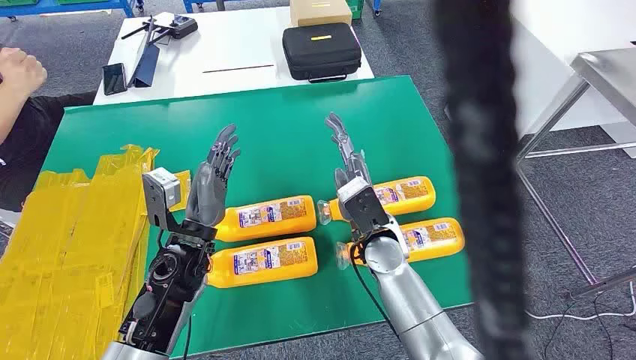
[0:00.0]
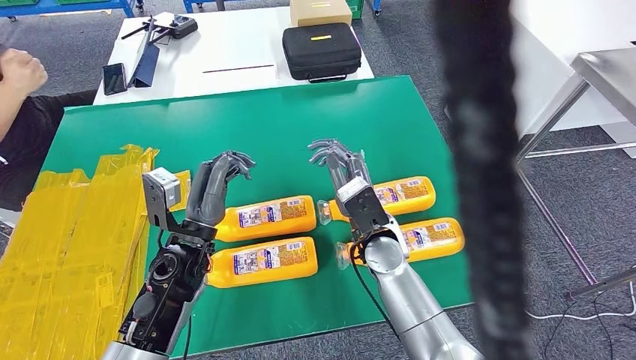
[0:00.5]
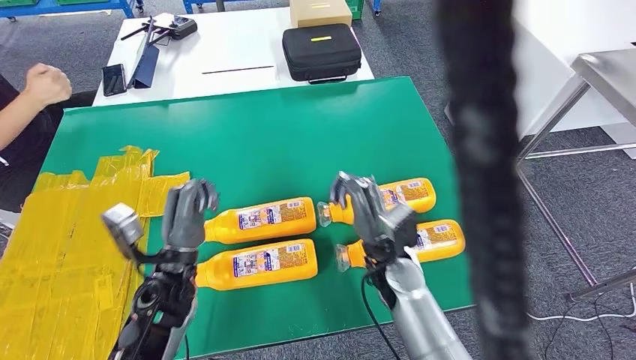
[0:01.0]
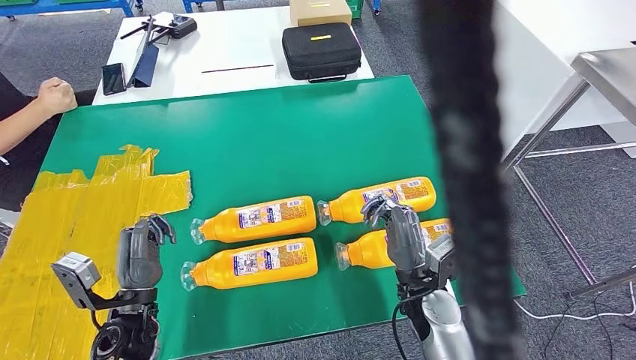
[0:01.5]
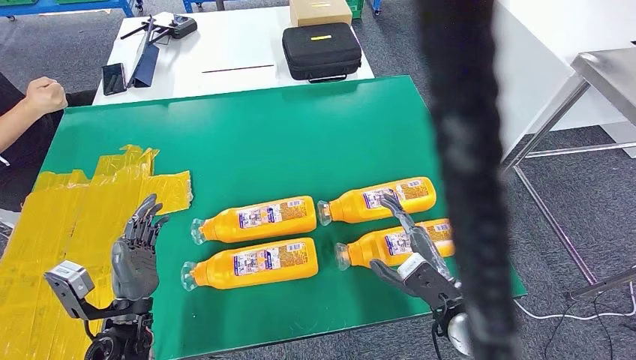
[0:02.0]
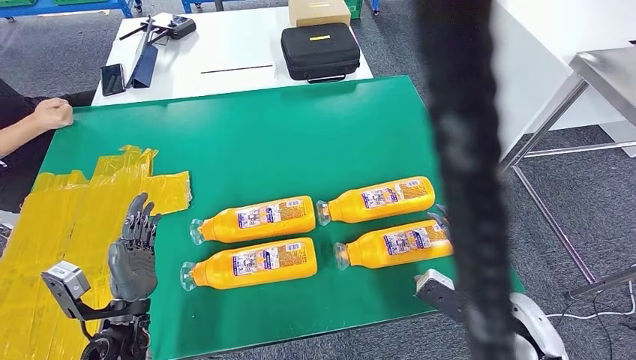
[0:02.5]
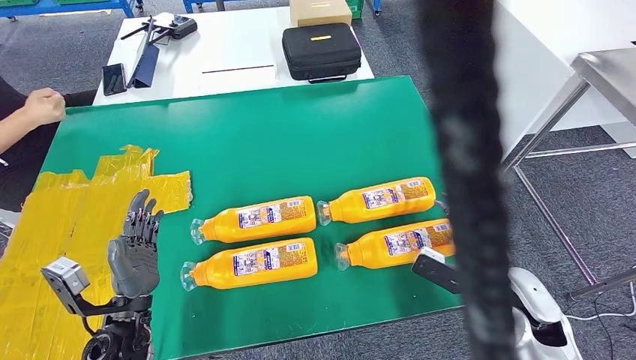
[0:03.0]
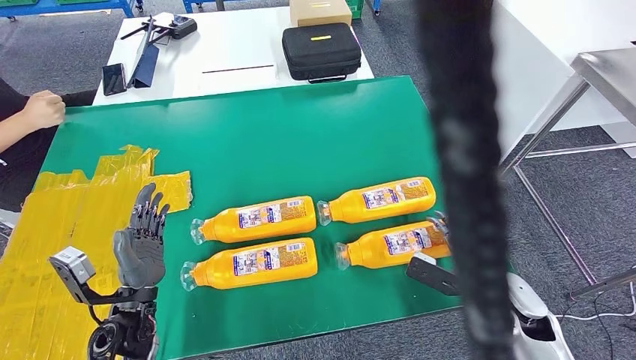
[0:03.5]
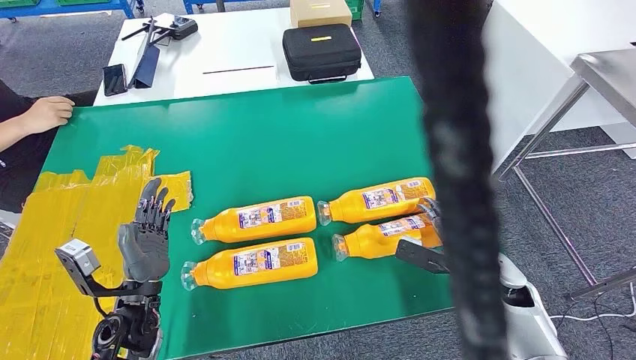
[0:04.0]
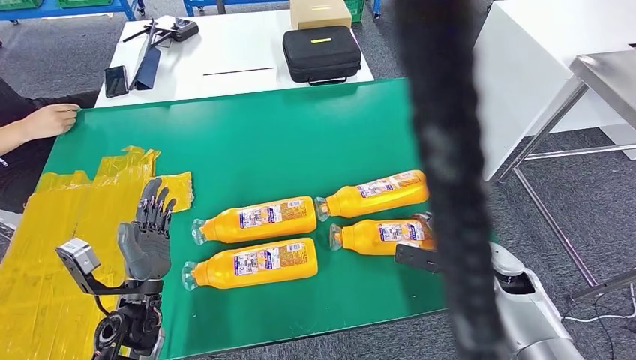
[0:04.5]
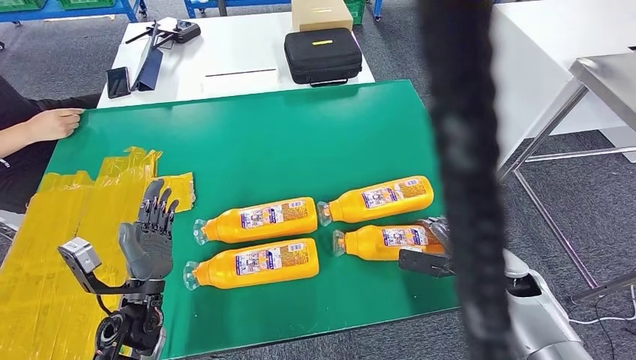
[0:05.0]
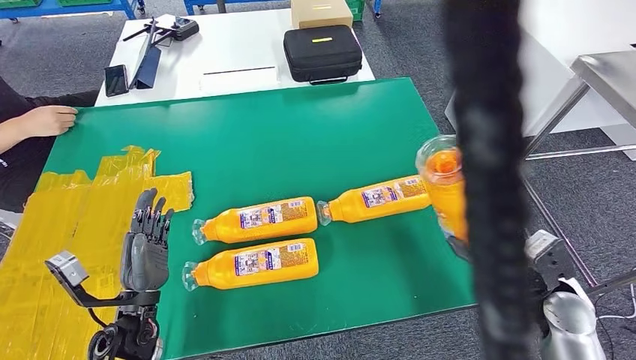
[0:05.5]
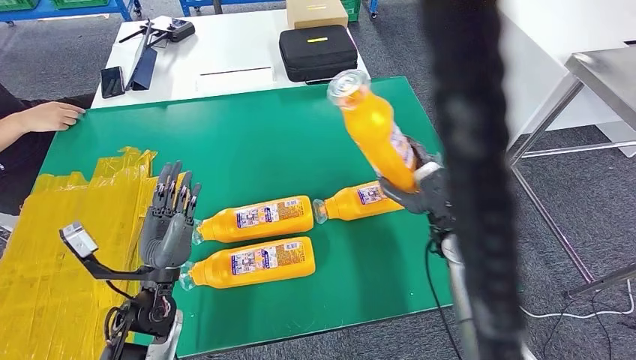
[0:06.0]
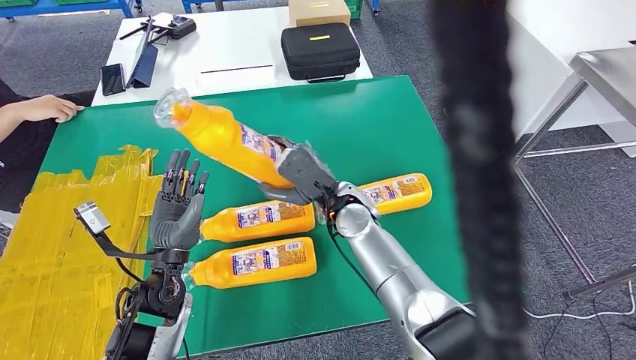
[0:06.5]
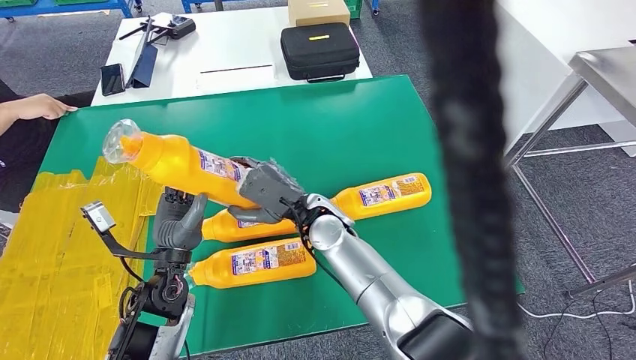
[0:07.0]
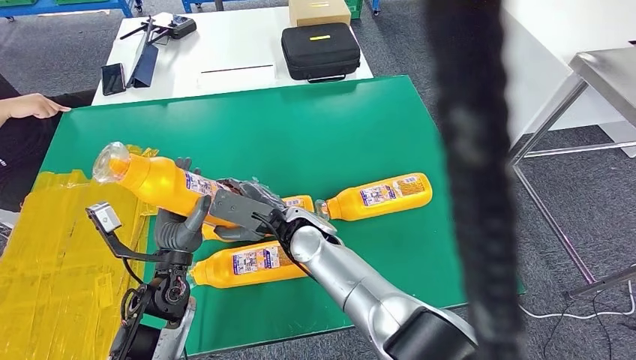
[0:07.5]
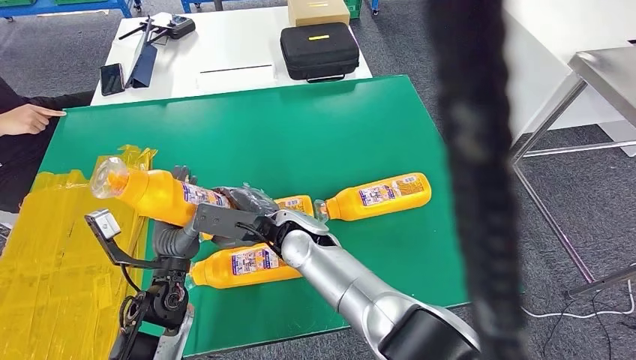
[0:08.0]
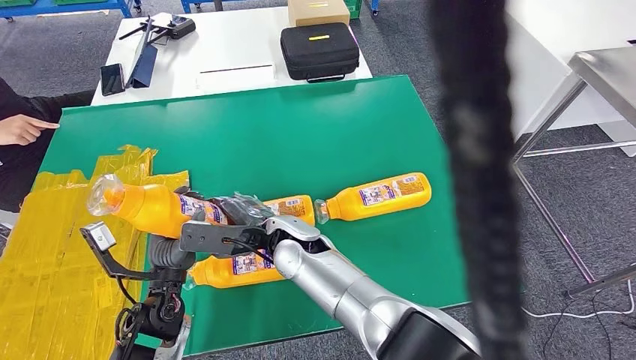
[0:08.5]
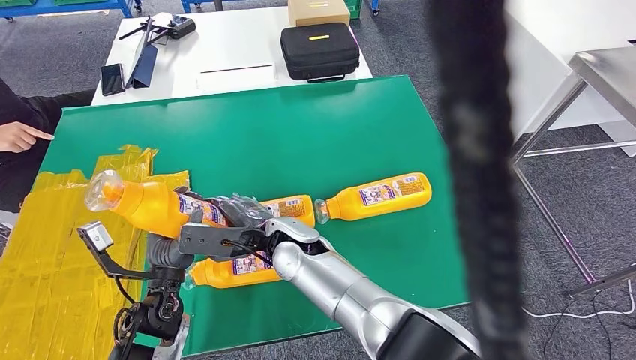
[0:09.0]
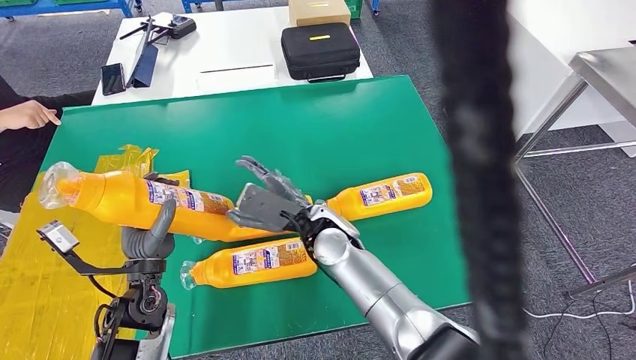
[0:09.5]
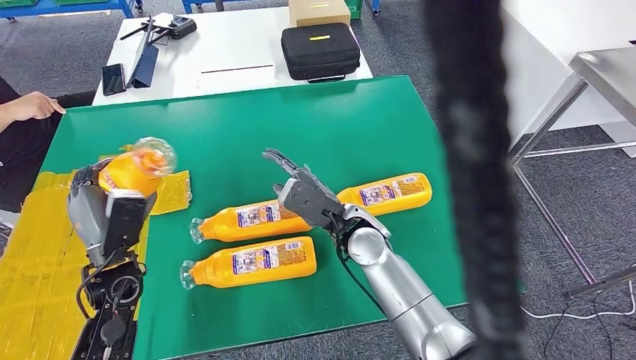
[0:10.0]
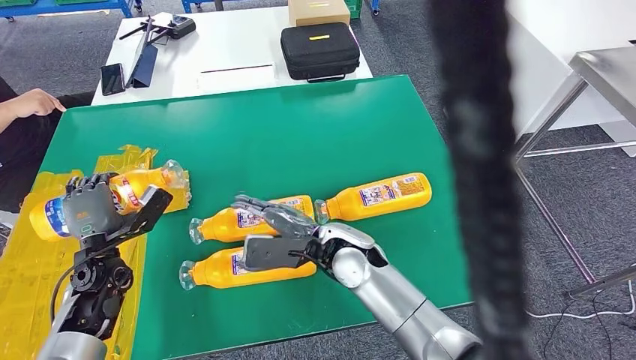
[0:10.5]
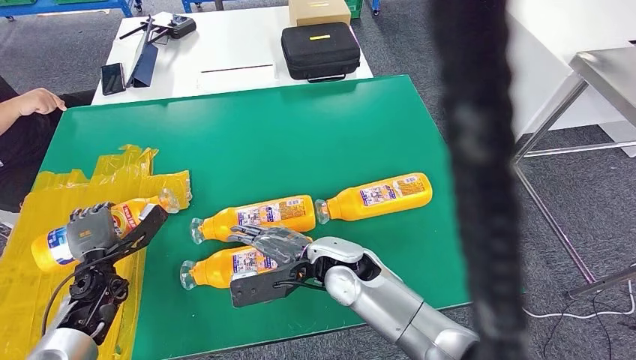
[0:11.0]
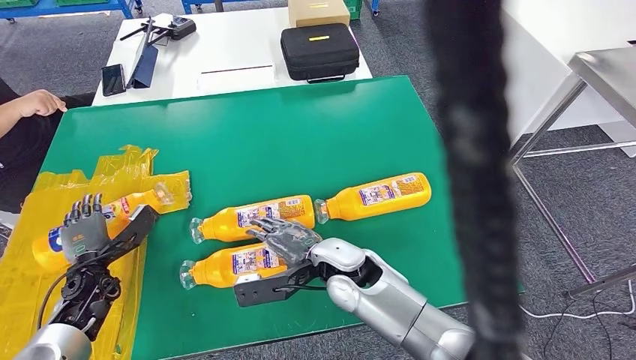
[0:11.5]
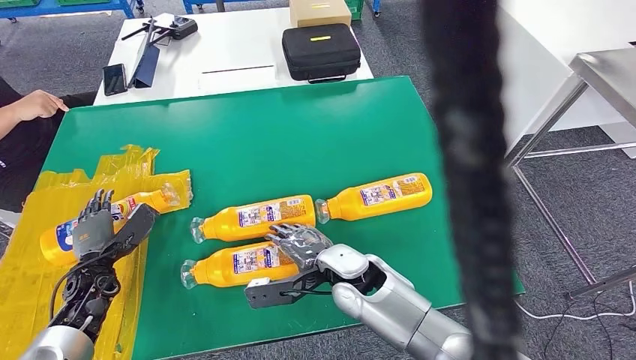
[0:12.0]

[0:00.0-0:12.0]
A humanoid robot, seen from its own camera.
Step, 0:00.0 to 0:06.5: Take the fast-moving consumer goods bottle from the table.
0:02.0 to 0:04.0: The right hand travels to the right and forward by roughly 10 cm.
0:10.0 to 0:12.0: The left hand moves to the left and downward, some 15 cm. The right hand goes about 10 cm backward and downward.

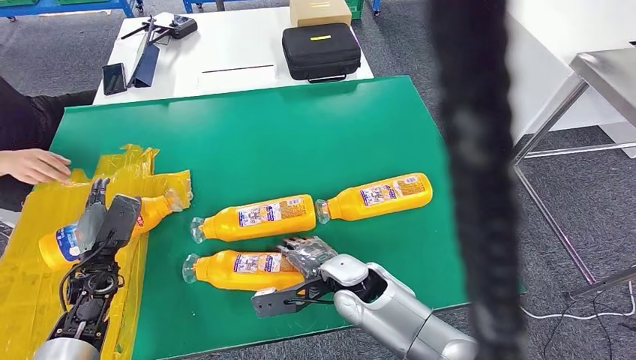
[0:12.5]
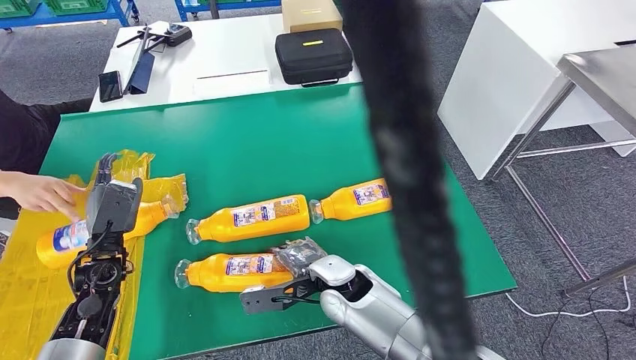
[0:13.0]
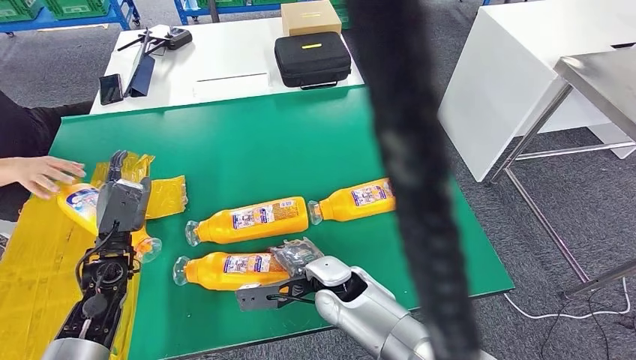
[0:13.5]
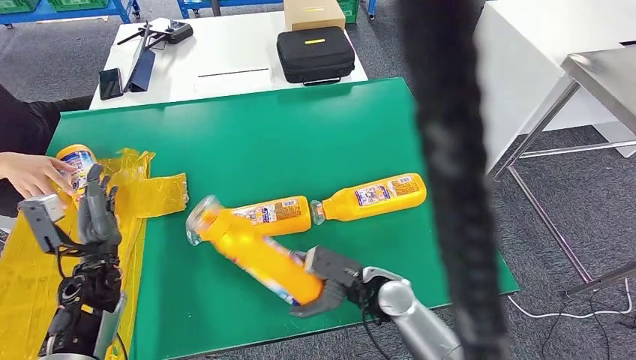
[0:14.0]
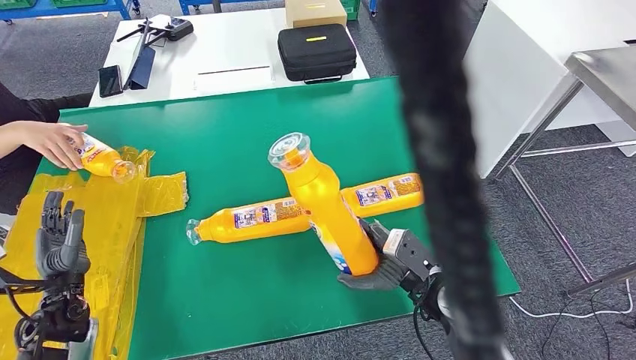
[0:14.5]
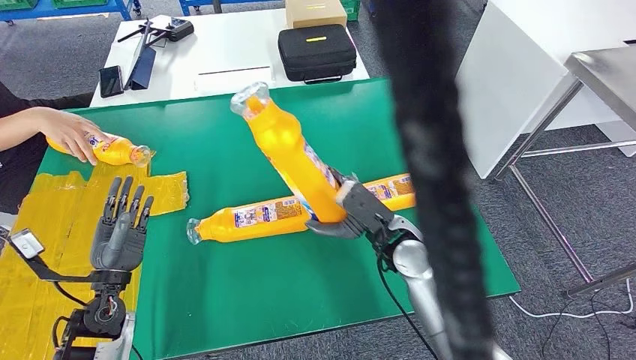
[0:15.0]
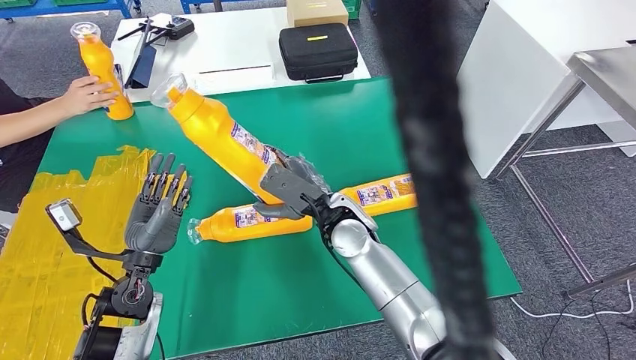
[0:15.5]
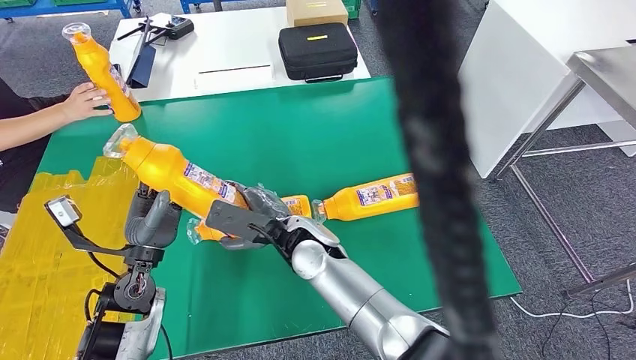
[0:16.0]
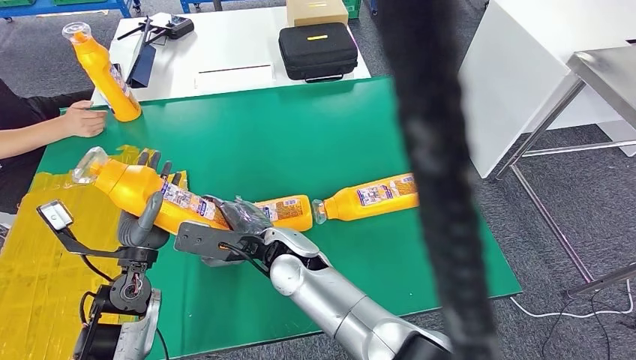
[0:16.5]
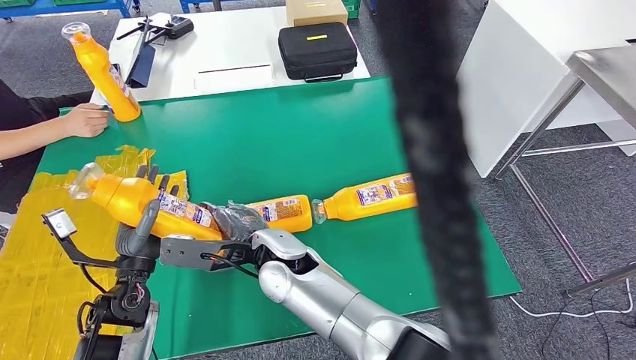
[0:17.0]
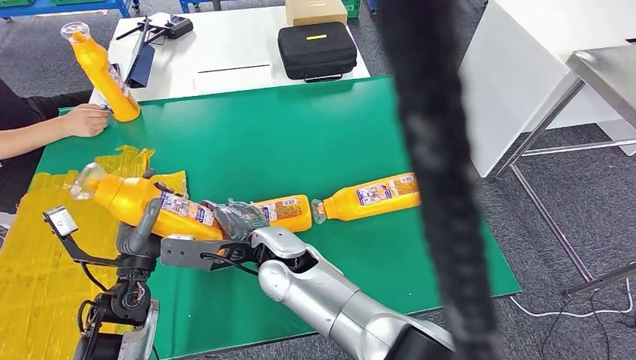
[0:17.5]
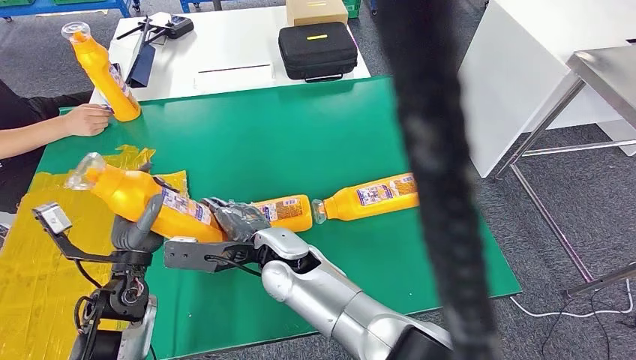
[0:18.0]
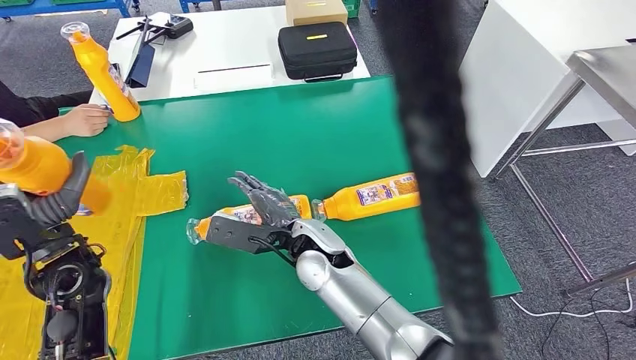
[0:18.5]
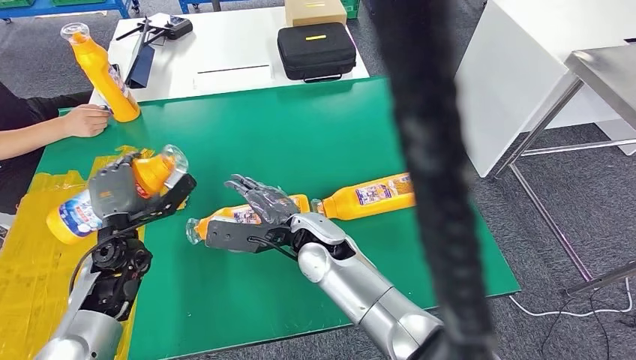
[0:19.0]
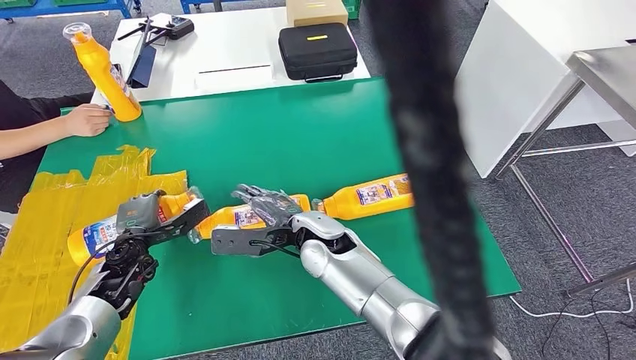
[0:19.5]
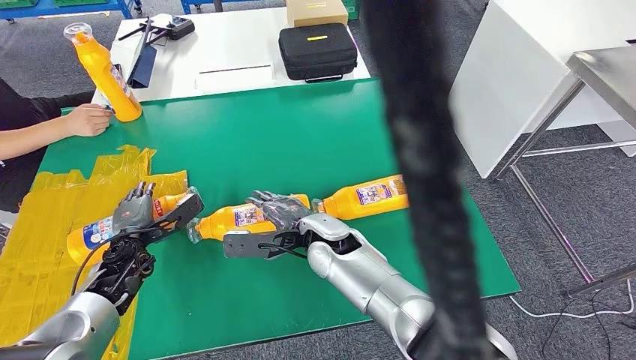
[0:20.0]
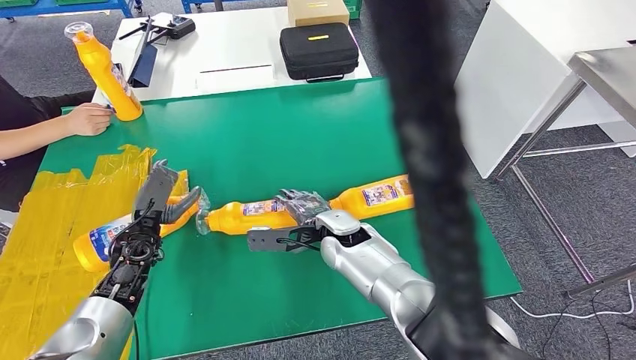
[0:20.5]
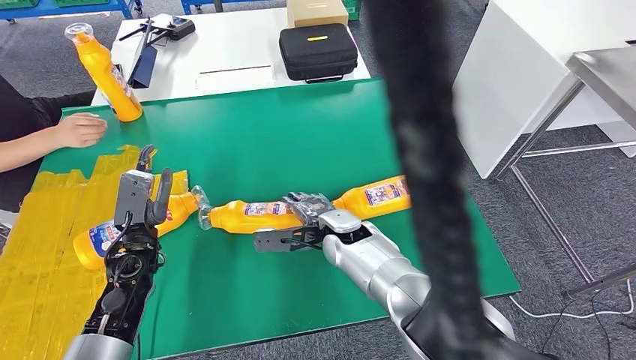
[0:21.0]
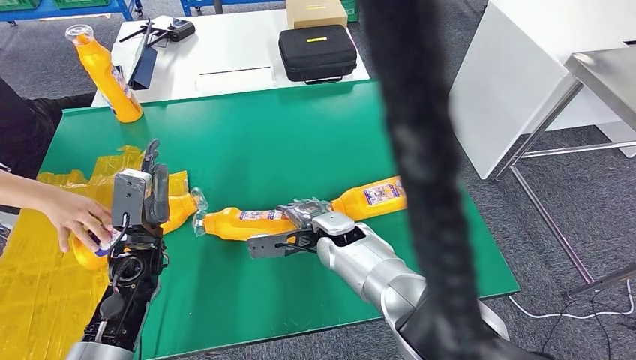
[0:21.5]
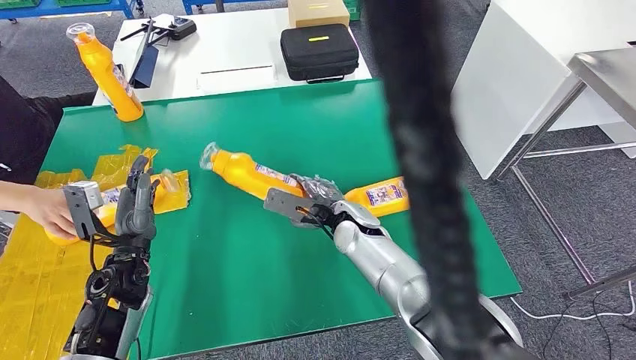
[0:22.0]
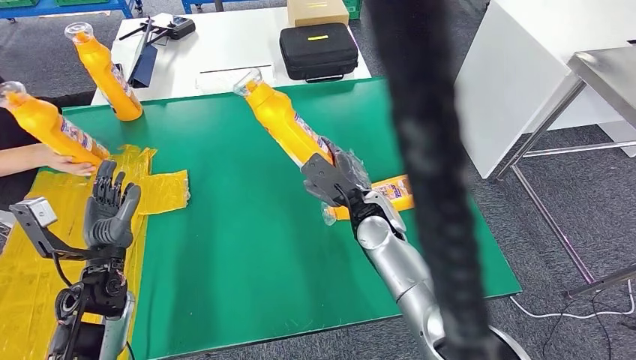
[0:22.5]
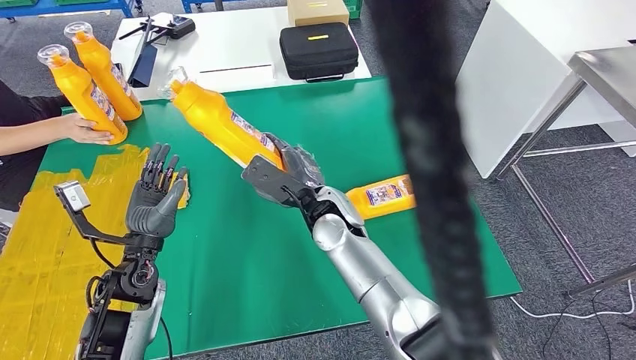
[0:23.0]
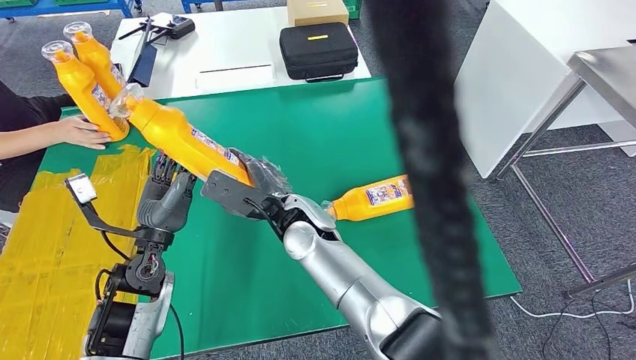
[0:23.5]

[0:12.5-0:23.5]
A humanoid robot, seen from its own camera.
Step, 0:12.5 to 0:16.0: Pick up the fast-moving consumer goods bottle from the table.
Step, 0:16.5 to 0:21.0: Flip the fast-moving consumer goods bottle to the front side.
0:16.0 to 0:18.0: The right hand is displaced to the left by about 5 cm.
0:20.0 to 0:21.5: The left hand moves to the right and upward, about 10 cm.
